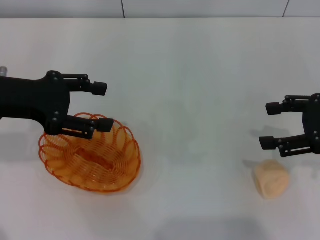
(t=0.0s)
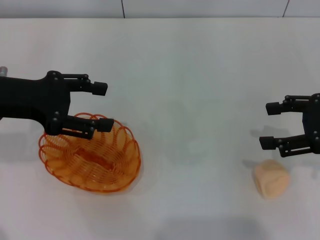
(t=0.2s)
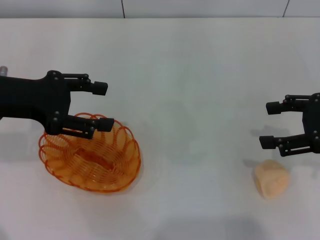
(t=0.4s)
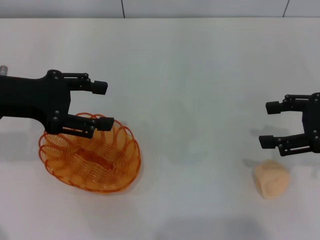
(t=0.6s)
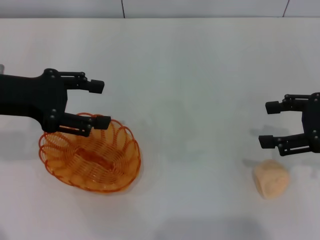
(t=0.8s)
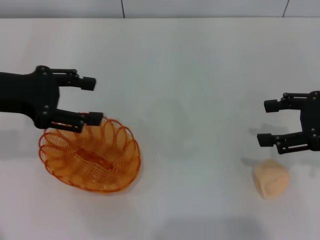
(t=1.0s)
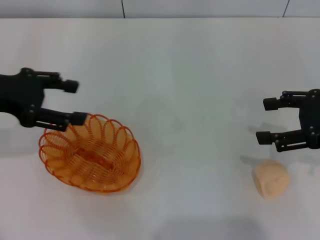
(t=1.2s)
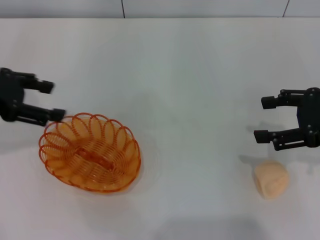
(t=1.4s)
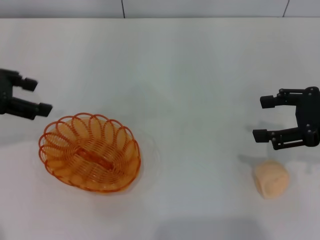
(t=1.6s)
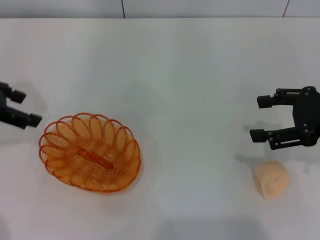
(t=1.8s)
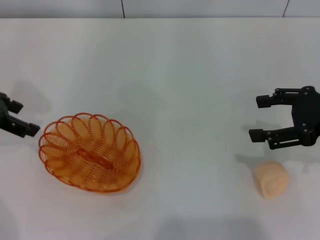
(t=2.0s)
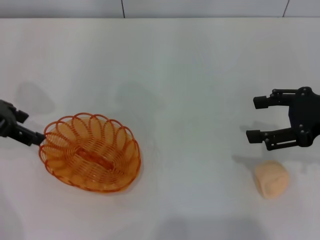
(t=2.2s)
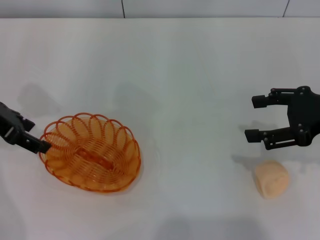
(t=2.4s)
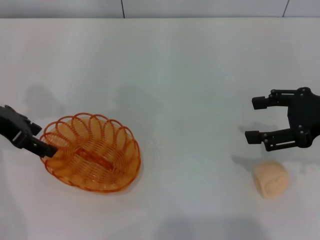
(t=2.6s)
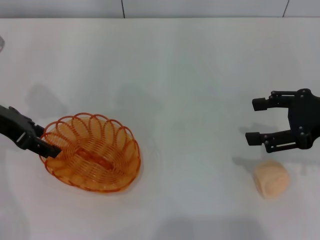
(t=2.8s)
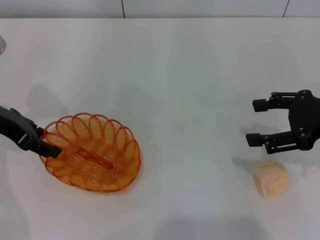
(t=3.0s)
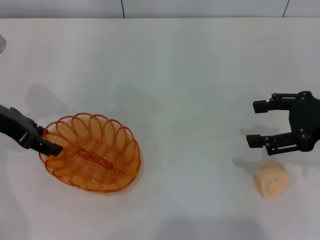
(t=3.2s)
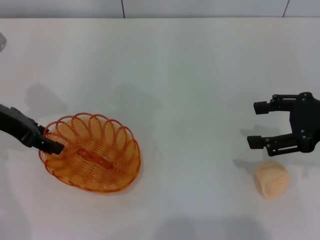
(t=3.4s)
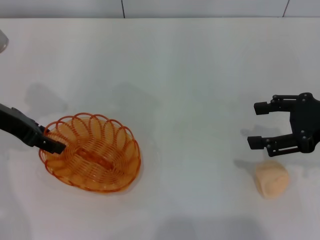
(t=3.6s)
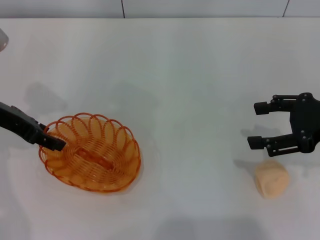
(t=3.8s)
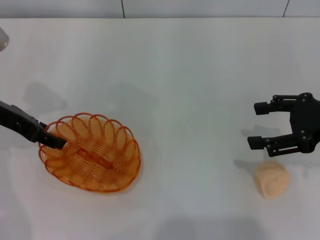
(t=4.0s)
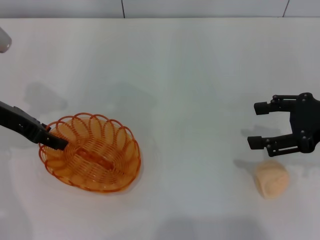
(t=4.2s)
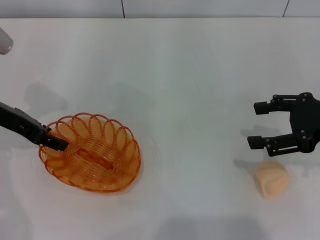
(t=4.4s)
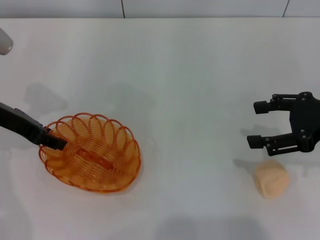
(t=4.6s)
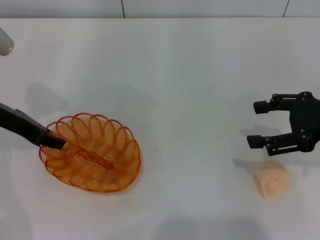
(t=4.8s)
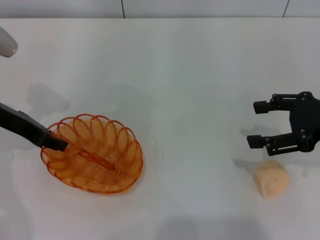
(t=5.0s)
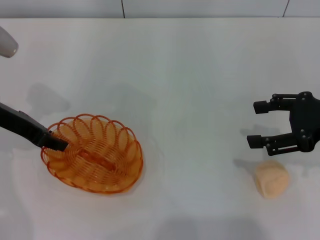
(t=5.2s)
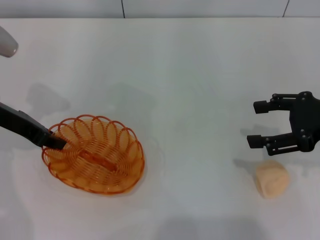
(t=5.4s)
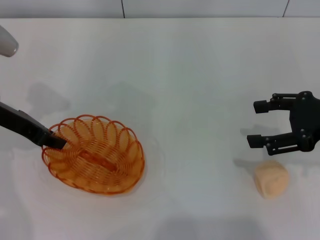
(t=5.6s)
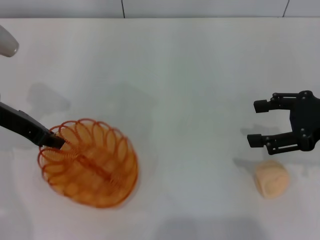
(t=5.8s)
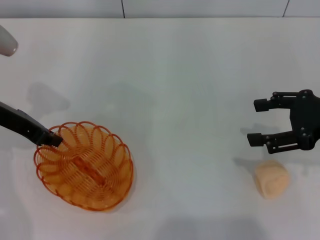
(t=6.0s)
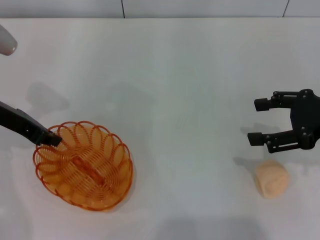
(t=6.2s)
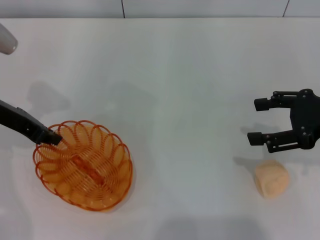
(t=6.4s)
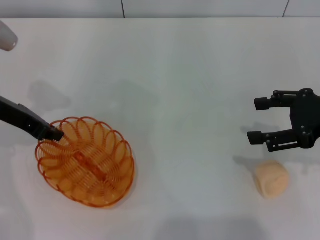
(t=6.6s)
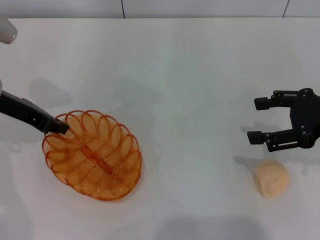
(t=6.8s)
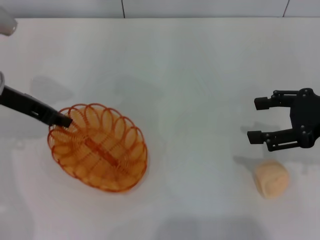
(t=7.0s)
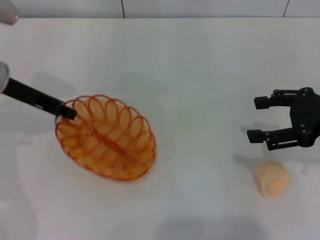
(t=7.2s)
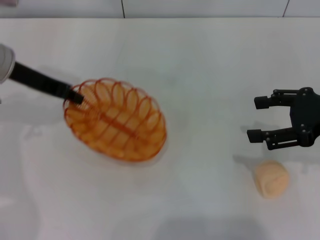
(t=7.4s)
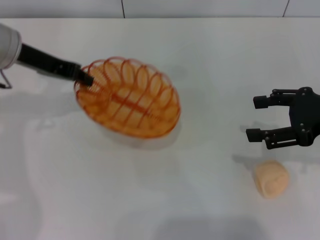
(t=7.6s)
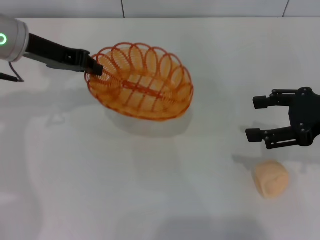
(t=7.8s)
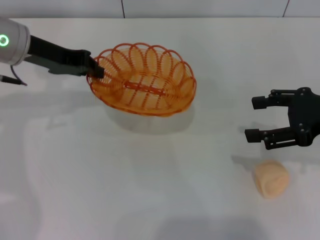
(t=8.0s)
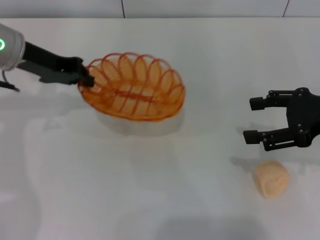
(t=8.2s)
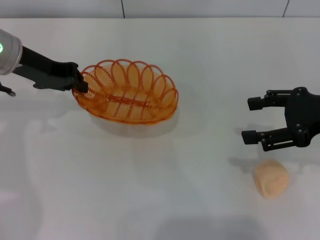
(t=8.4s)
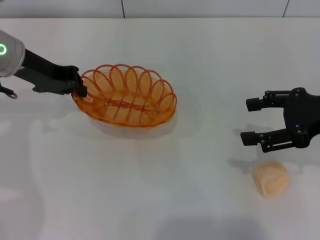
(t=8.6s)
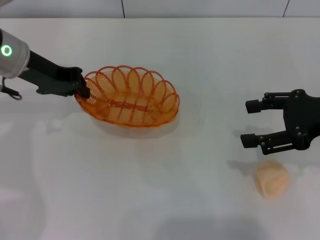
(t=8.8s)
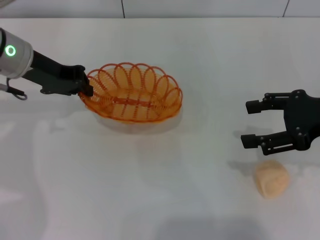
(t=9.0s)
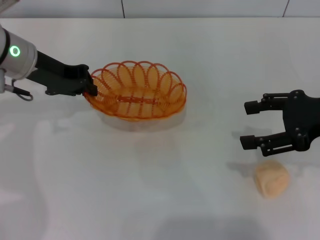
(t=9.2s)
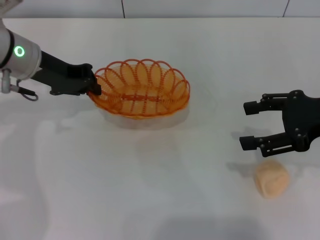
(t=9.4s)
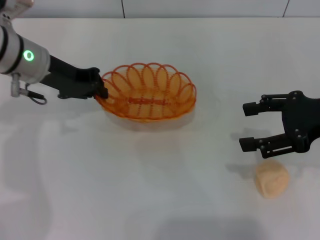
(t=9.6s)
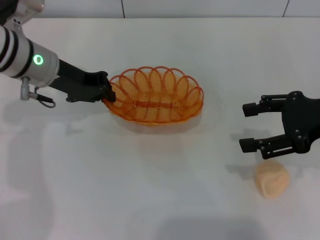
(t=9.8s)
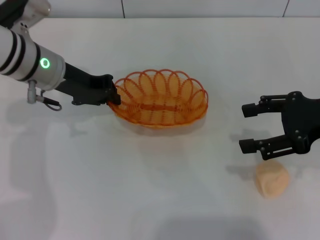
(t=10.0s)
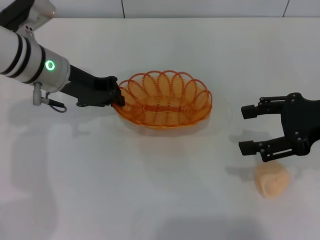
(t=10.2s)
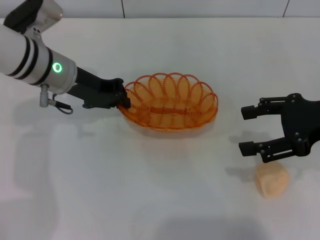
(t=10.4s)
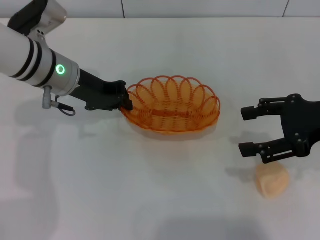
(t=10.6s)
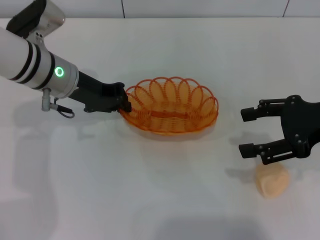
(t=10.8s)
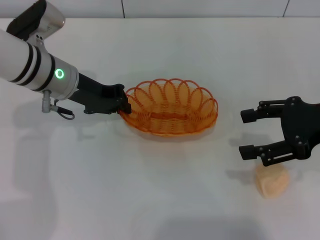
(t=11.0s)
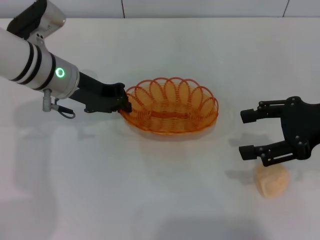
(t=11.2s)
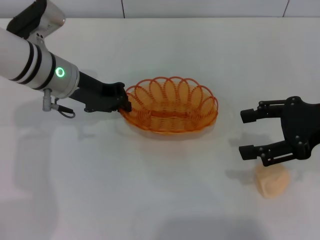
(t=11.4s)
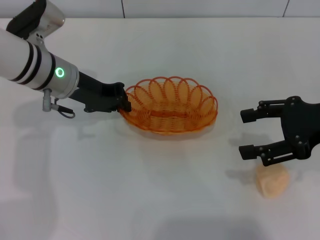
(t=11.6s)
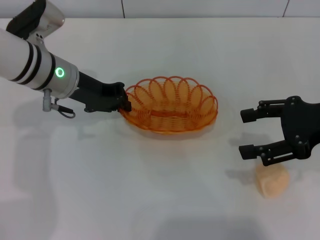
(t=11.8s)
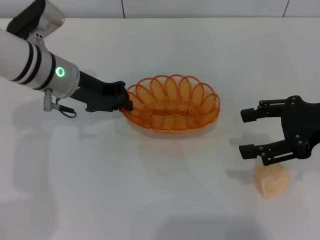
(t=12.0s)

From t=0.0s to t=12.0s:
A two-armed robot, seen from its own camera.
Step, from t=0.0s to t=7.0s: Pick up the basket with the left gripper.
From t=0.0s to t=1.6s: The left gripper changes place by about 5 cm.
From t=1.6s to t=3.0s: The left gripper shifts about 5 cm downward.
From t=3.0s to t=4.4s: The grippers make only small movements.
From t=4.4s to t=6.0s: The left gripper closes.
From t=6.0s to t=7.6s: The left gripper ends up roughly 5 cm from where it was.
From t=9.0s to t=10.4s: The left gripper shifts by approximately 5 cm.
From t=10.4s to t=12.0s: The two grippers keep their place.

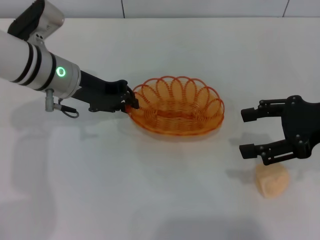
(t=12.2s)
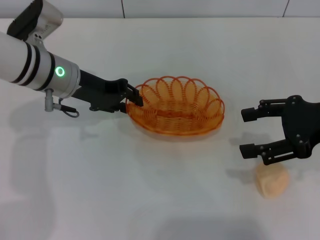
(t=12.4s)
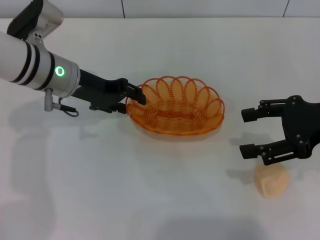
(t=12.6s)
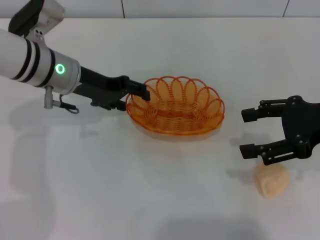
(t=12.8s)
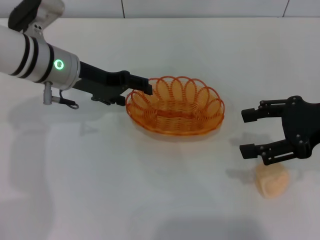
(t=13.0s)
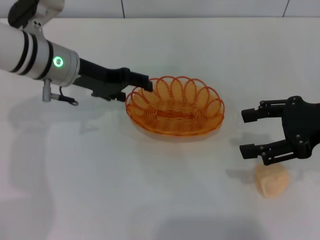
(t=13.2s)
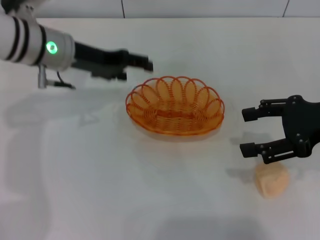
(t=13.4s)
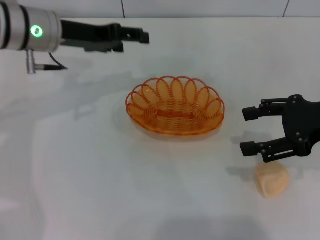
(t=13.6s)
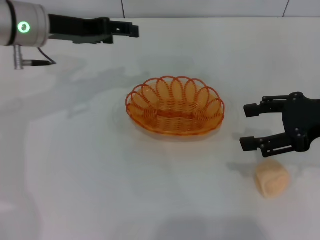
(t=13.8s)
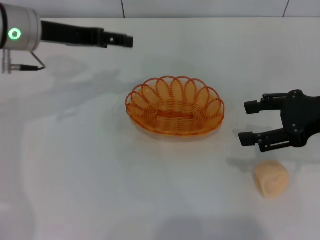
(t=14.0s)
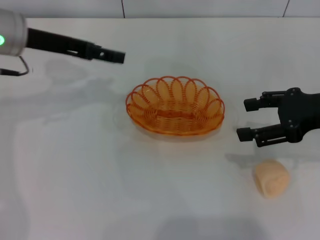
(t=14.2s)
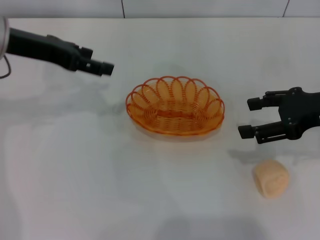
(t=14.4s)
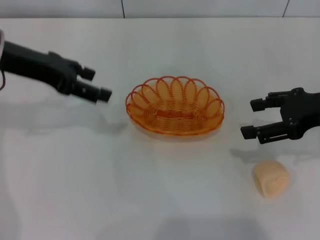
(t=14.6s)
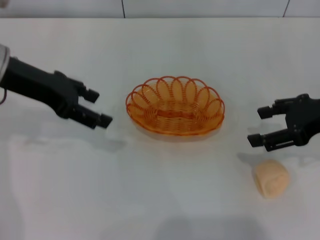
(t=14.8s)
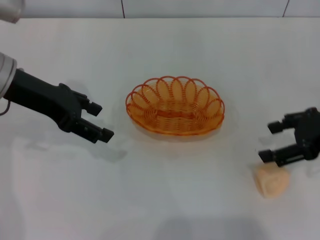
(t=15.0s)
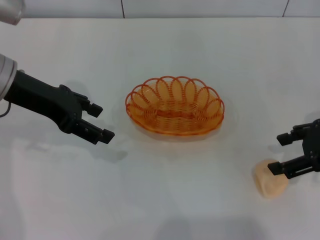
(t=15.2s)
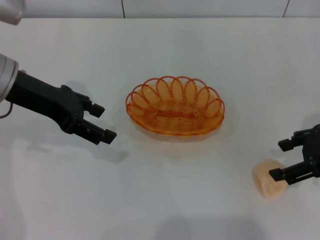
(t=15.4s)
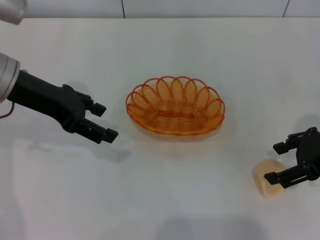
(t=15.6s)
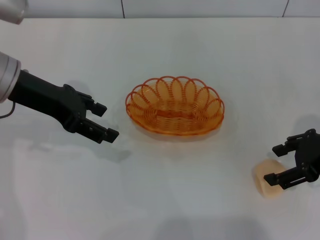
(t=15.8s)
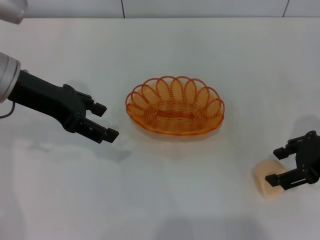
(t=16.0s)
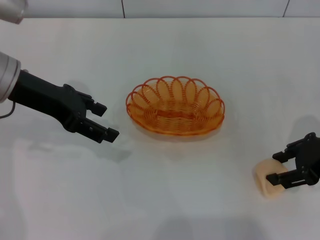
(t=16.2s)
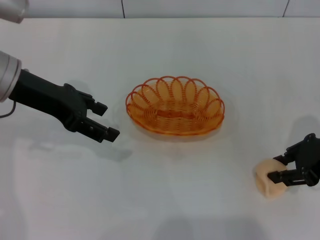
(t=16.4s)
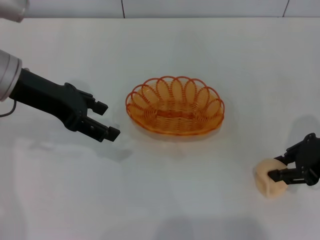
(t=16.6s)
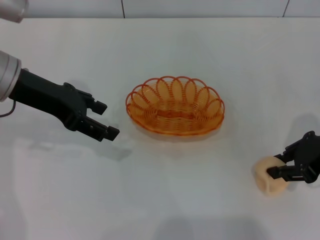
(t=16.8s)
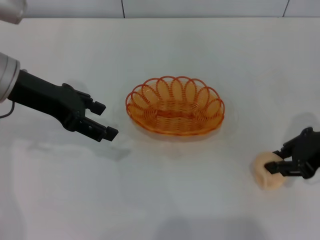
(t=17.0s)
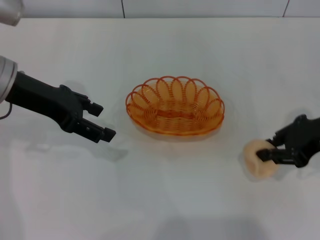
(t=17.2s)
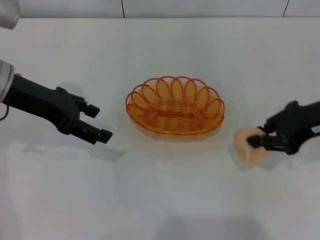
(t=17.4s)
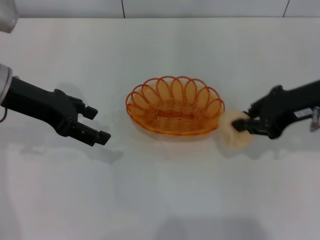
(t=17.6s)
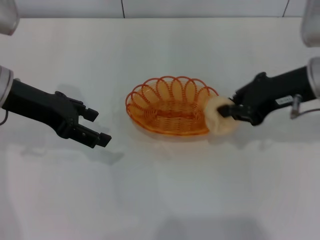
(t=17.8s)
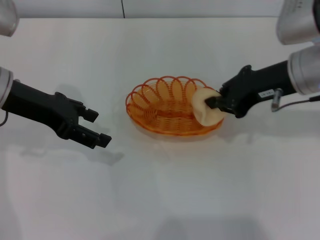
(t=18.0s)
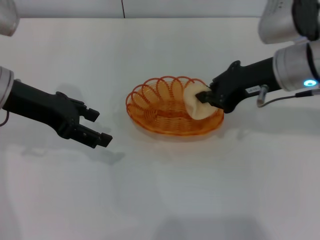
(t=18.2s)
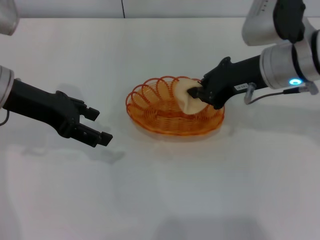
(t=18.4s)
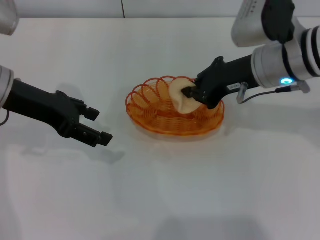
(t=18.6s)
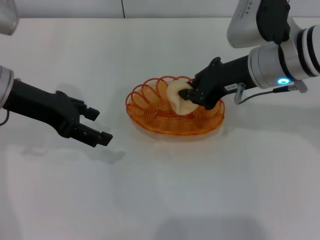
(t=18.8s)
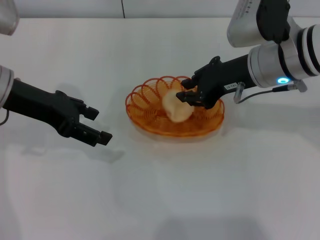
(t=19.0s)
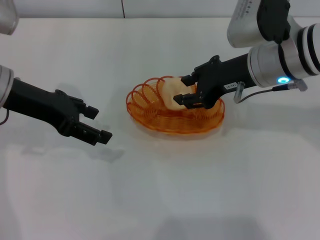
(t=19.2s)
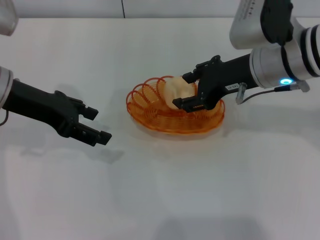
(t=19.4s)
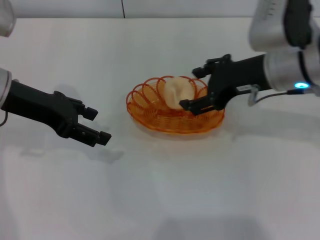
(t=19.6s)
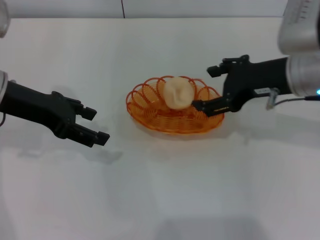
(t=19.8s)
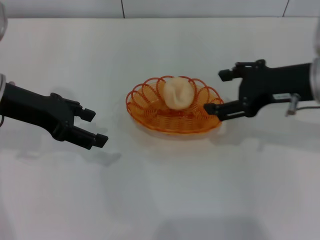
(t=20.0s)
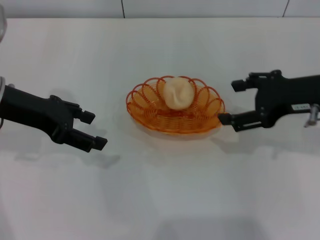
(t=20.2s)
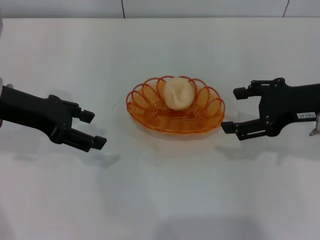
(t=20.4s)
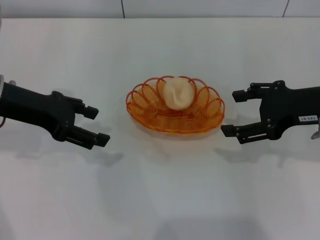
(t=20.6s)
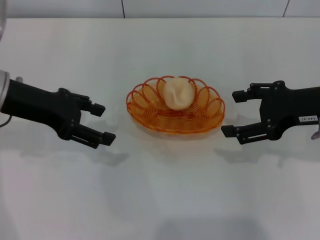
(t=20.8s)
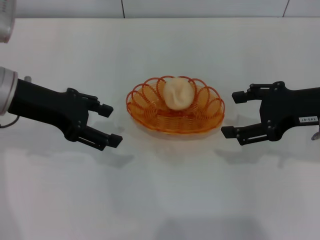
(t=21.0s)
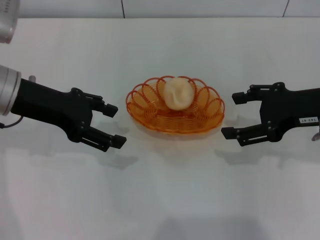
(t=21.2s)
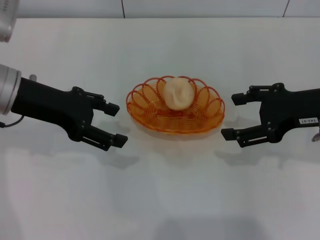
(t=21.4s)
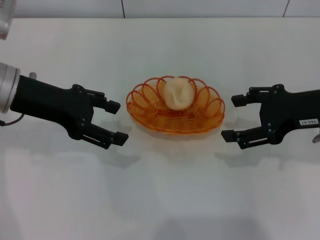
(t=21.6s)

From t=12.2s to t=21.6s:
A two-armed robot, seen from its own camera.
Step, from t=13.4s to t=17.2s: Pick up the egg yolk pastry with the right gripper.
Step, from t=17.4s to t=19.8s: Place the egg yolk pastry into the basket with the right gripper.
From t=12.2s to t=13.8s: The left gripper travels upward by about 5 cm, and opens.
From t=13.8s to t=15.4s: The left gripper heads backward, covering roughly 5 cm.
From t=15.4s to t=17.0s: The right gripper closes.
From t=17.0s to t=18.4s: The right gripper travels to the left and forward by roughly 15 cm.
From t=18.4s to t=20.0s: The right gripper heads to the right, covering approximately 5 cm, and opens.
From t=20.0s to t=21.6s: The grippers stay close to where they were, moving slightly.
